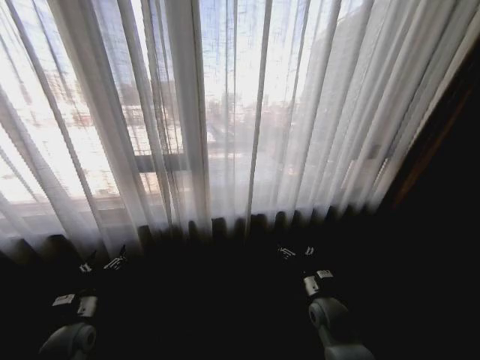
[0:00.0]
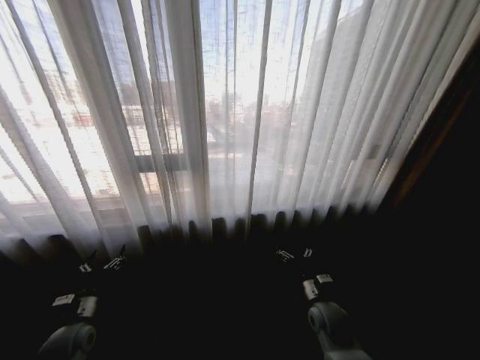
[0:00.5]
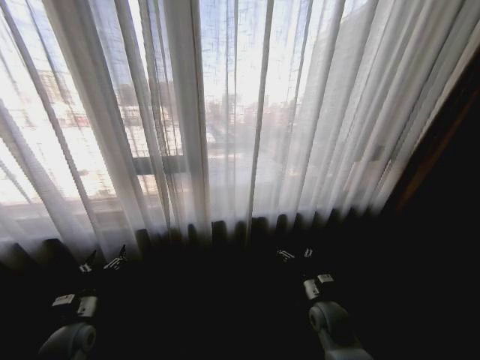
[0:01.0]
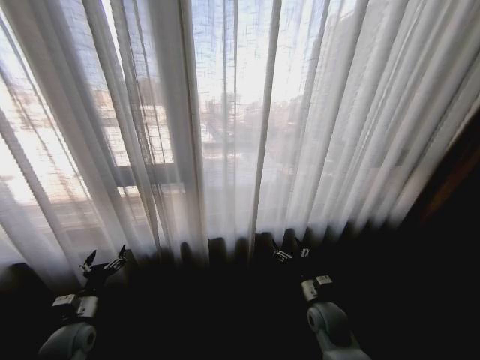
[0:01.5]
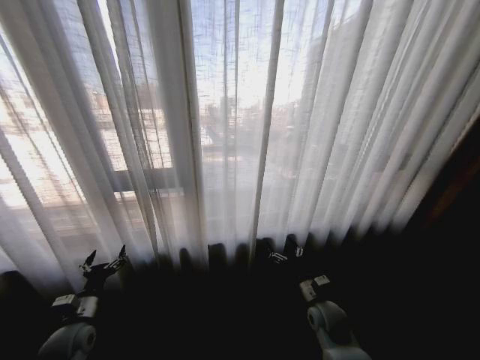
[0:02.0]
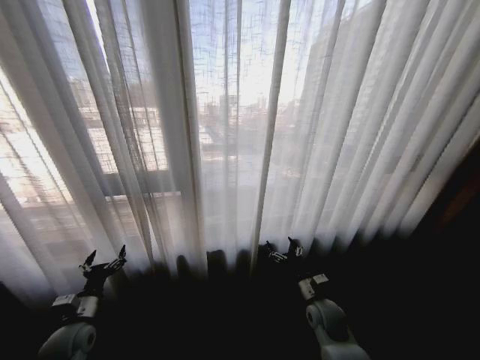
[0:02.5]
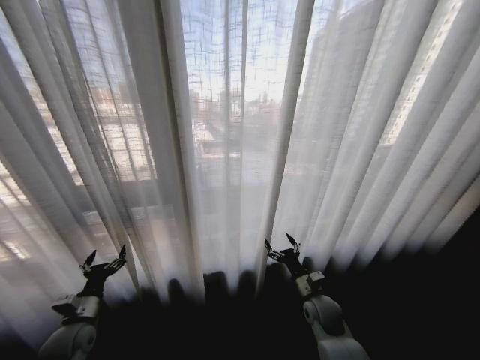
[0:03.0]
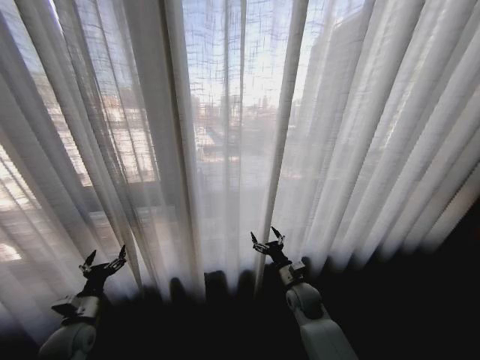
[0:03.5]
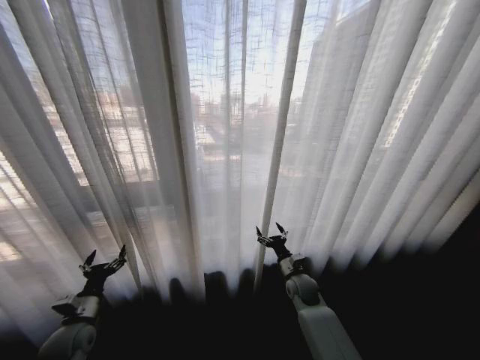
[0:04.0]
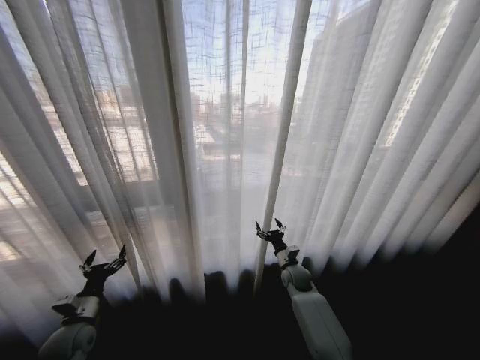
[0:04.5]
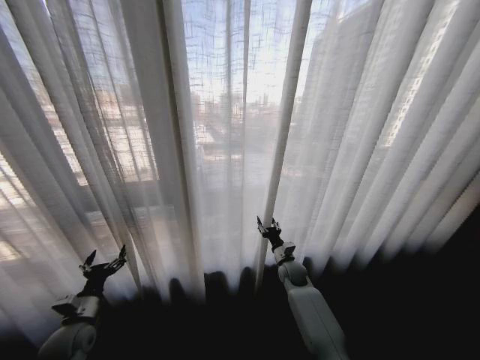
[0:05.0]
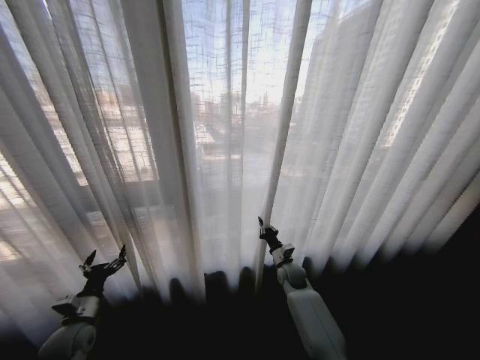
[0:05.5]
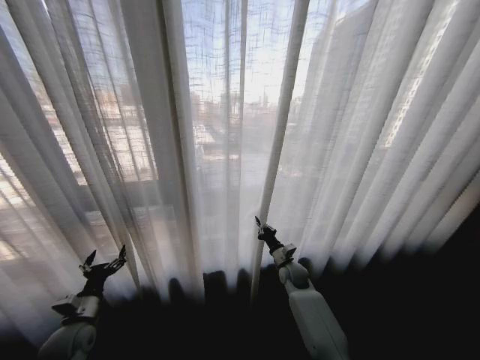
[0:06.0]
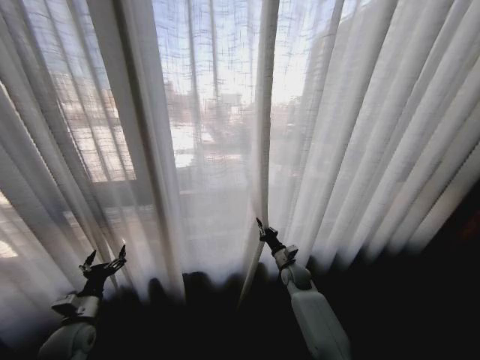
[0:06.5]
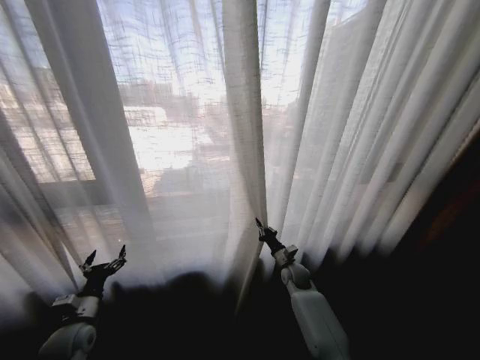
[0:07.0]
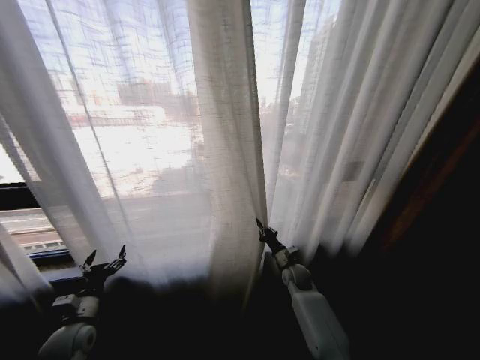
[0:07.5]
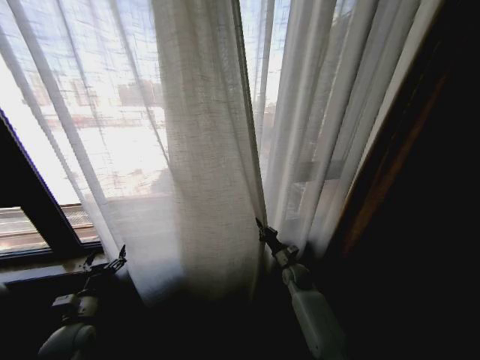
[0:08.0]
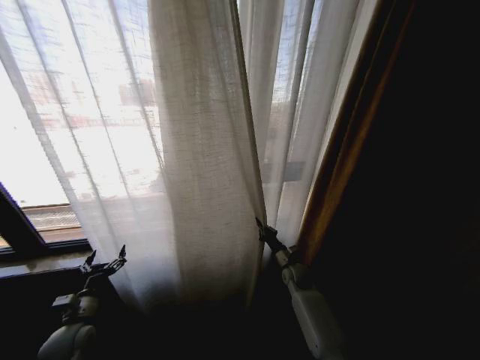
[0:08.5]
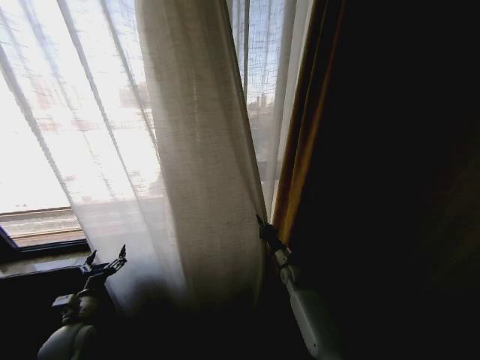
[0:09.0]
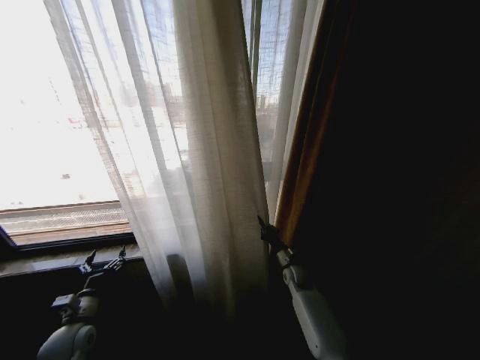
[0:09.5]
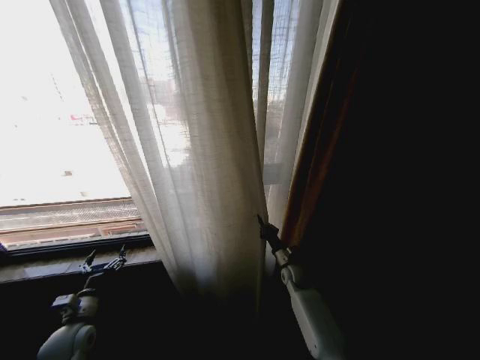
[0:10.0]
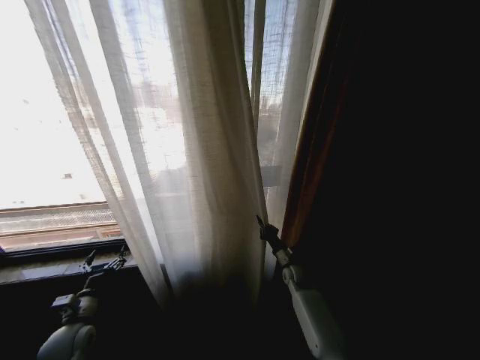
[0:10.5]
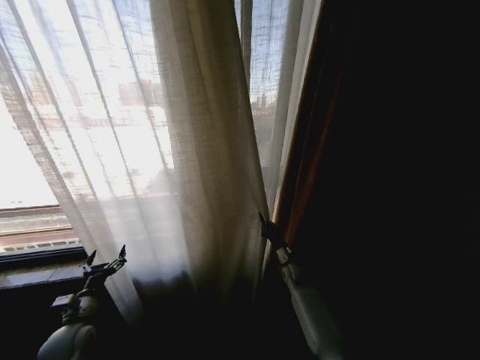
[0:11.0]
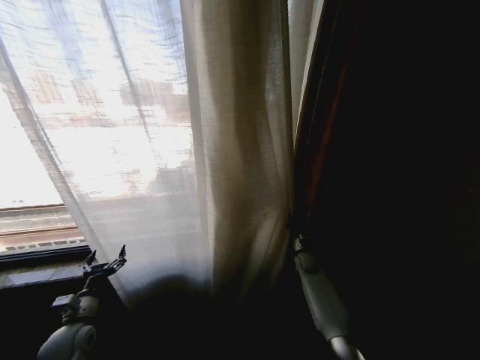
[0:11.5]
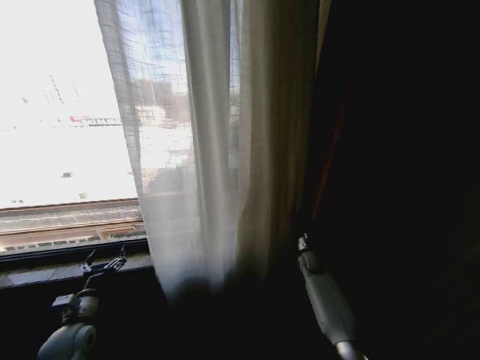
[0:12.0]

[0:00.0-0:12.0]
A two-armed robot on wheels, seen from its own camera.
Task of the whole recording: Open the curtains by pulling them apart, changing their state from closed to fully open.
0:02.0 to 0:04.0: The right gripper heads forward, covering about 10 cm.
0:04.0 to 0:06.0: The right gripper heads forward, covering about 5 cm, and closes its fingers.
0:10.0 to 0:12.0: The right gripper heads to the right, covering some 10 cm.

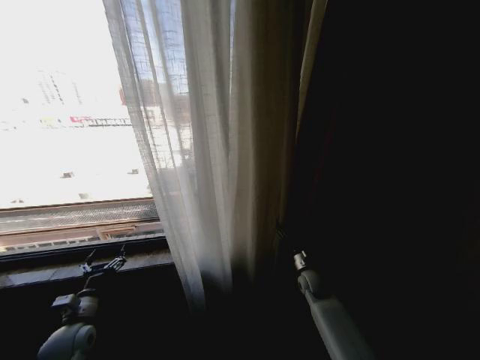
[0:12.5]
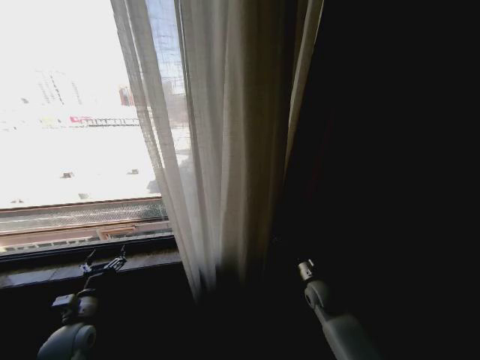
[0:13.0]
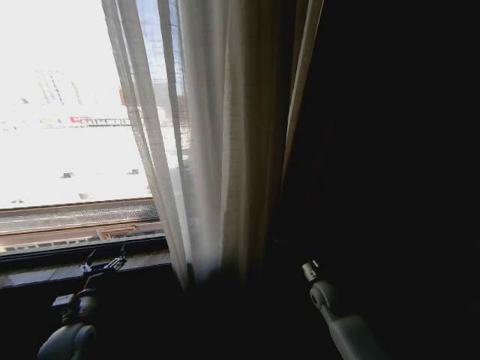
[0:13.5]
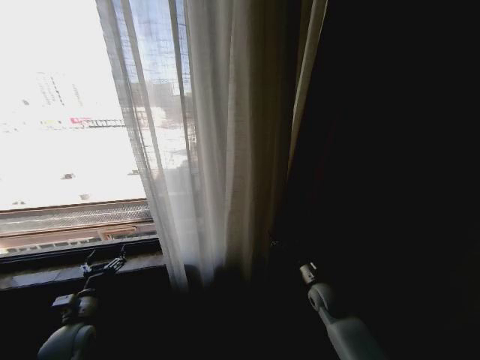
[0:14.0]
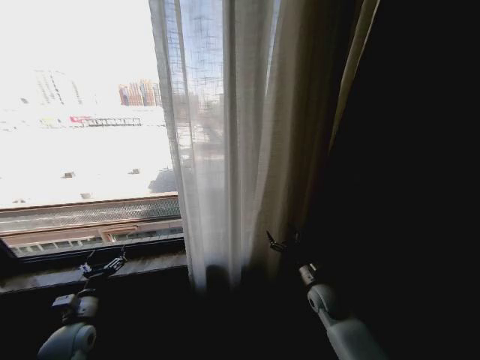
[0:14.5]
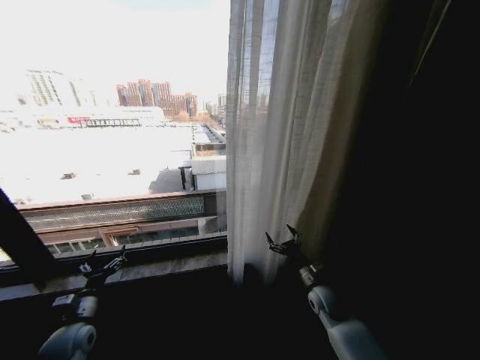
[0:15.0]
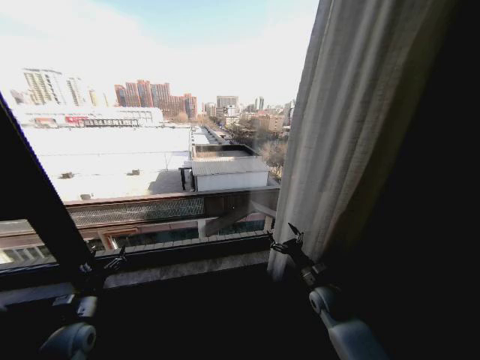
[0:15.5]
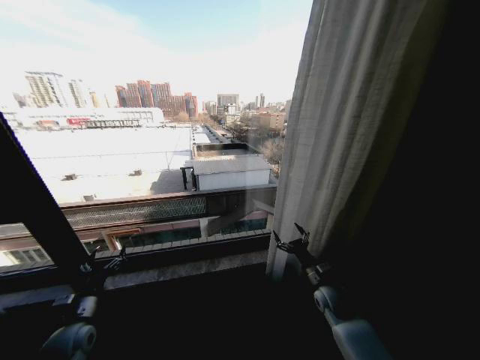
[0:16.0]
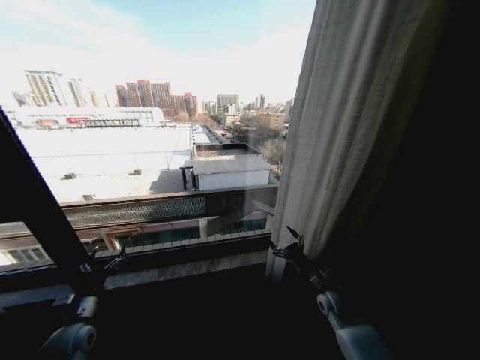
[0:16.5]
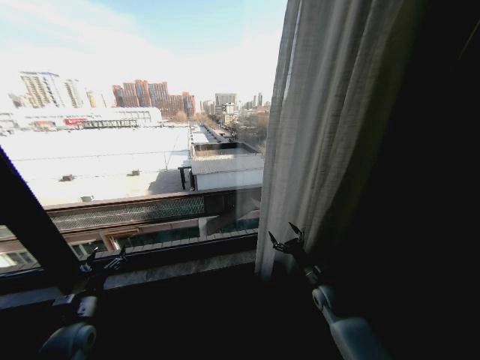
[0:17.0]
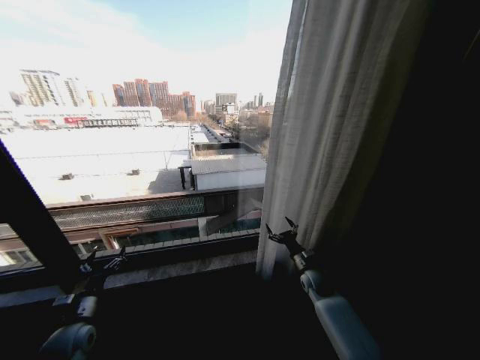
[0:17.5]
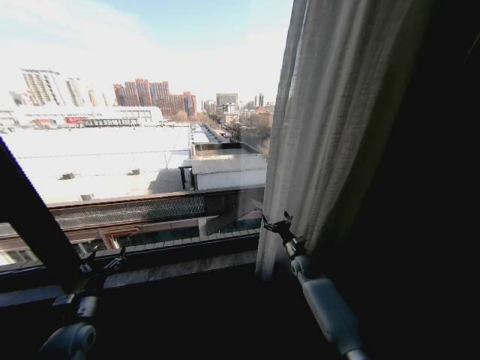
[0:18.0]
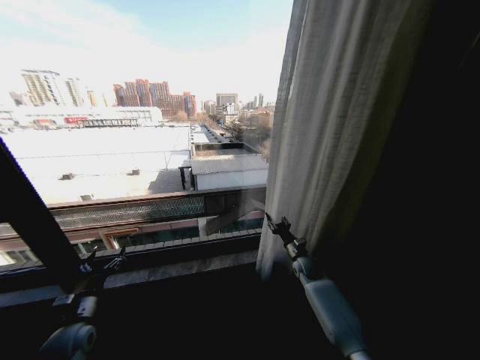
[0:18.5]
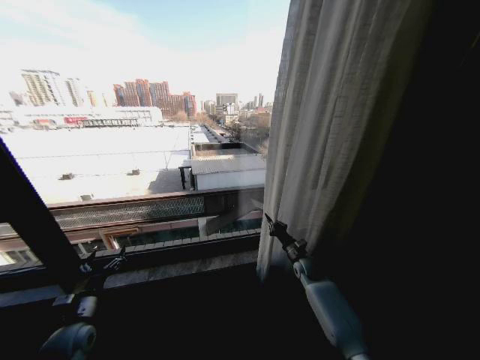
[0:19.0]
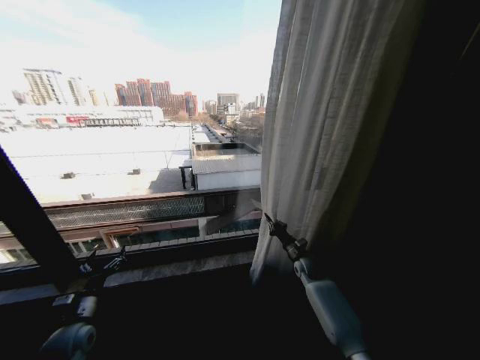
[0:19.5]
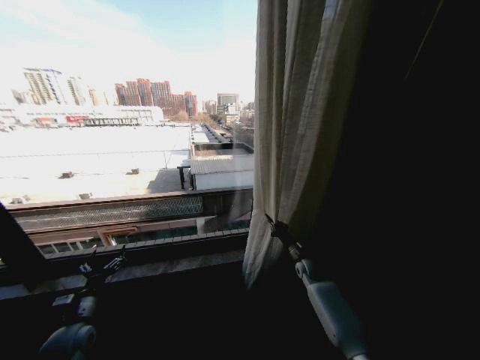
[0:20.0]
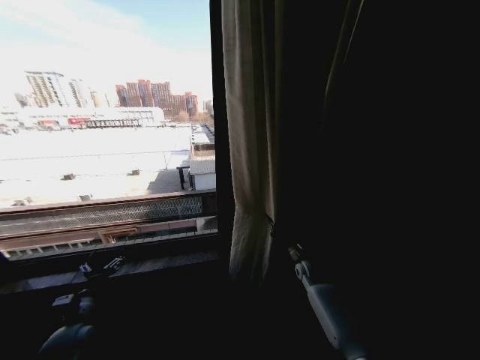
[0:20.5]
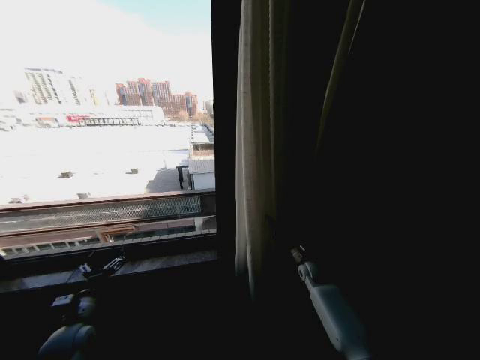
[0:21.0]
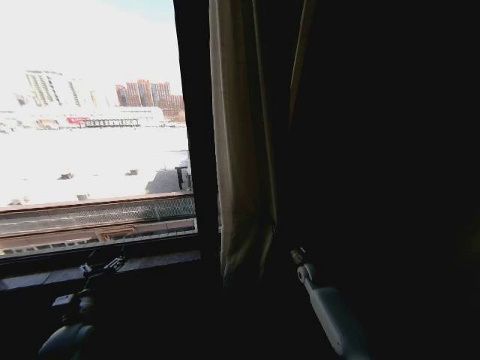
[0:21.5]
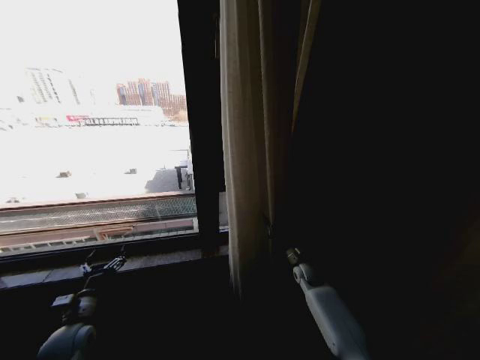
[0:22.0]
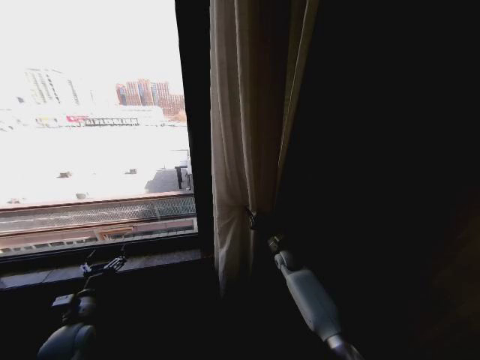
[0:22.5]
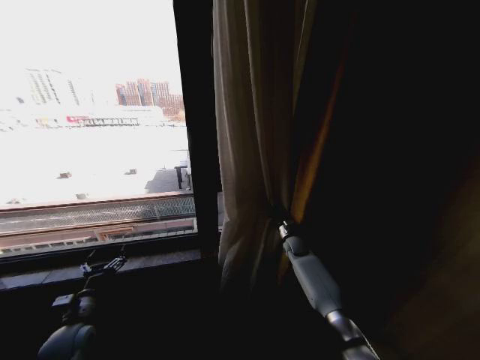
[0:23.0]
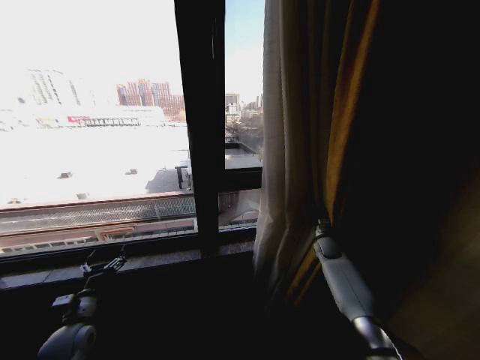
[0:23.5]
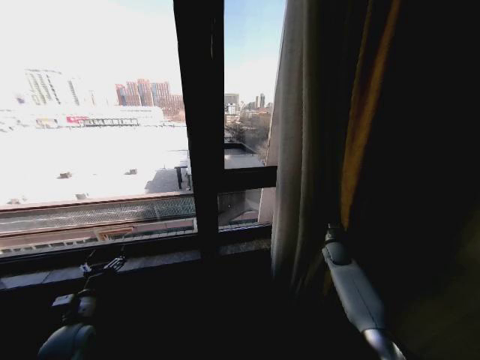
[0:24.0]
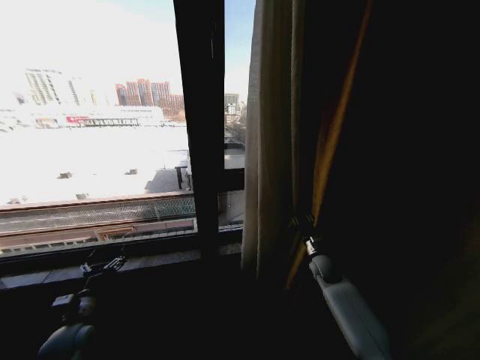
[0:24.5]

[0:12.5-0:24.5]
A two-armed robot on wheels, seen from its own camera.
Task of the whole recording: Open the curtains by pulling them apart, changing their state from closed to fully open.
0:12.5 to 0:14.5: The right gripper is displaced backward by some 5 cm, and opens.
0:16.5 to 0:18.5: The right gripper goes about 15 cm forward, and closes its fingers.
0:18.5 to 0:20.5: The right gripper closes up.
0:20.5 to 0:22.5: The right gripper is displaced to the left by some 5 cm.
0:22.5 to 0:24.5: The right gripper goes about 10 cm to the right and backward.

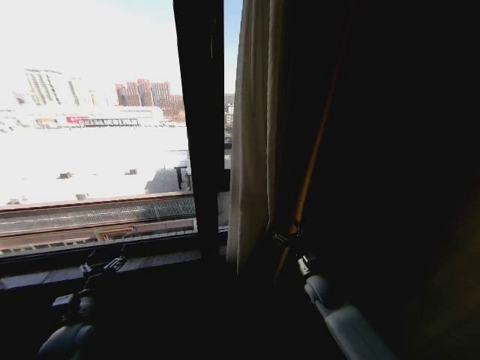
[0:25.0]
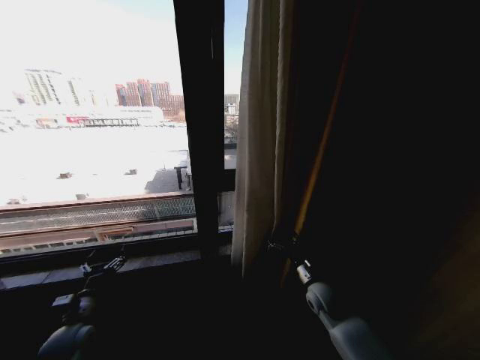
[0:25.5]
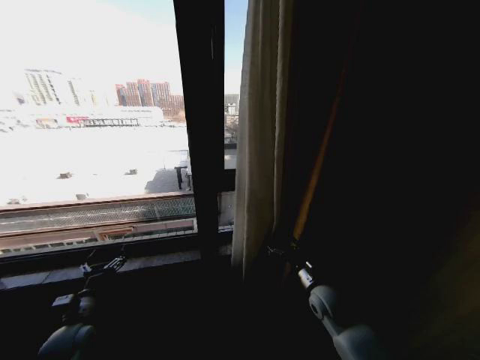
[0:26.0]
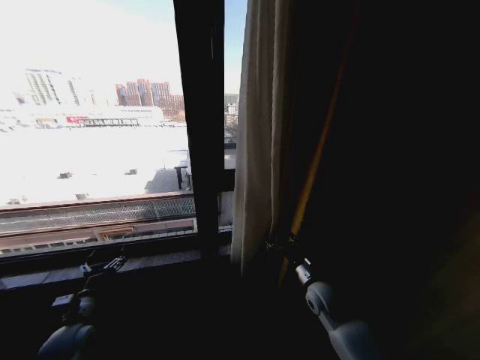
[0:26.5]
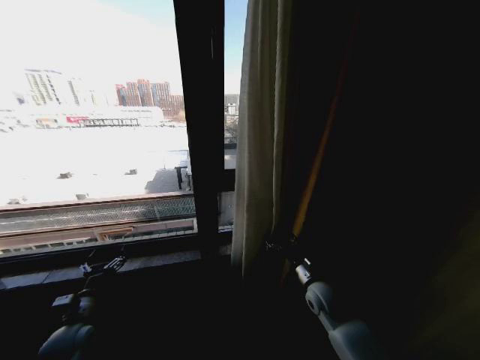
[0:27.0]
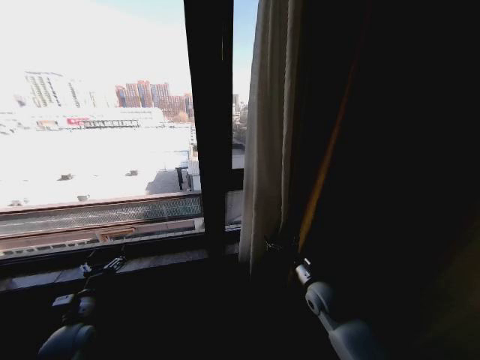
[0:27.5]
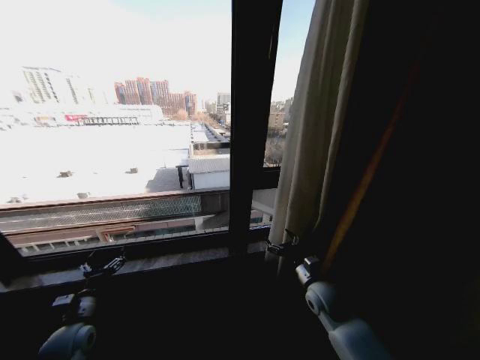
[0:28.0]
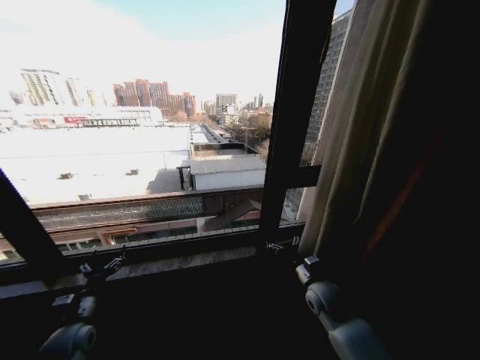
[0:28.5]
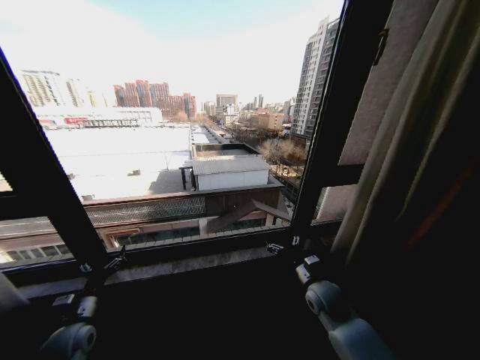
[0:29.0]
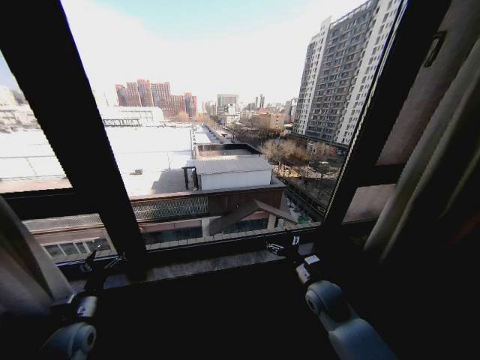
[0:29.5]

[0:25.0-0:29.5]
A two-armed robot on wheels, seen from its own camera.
Task of the whole recording: Open the curtains by pulling them apart, changing their state from closed to fully open.
0:25.0 to 0:27.0: The right gripper shifts by some 5 cm.
